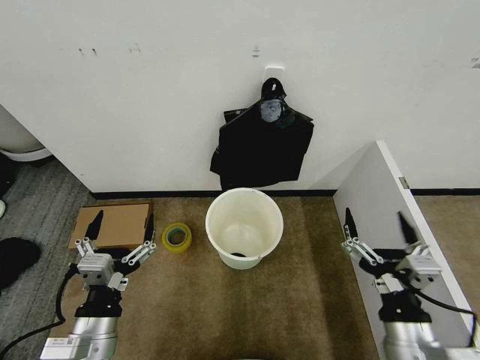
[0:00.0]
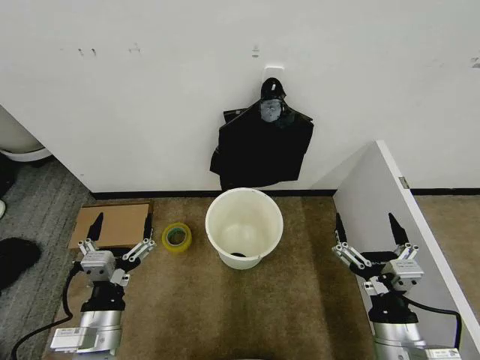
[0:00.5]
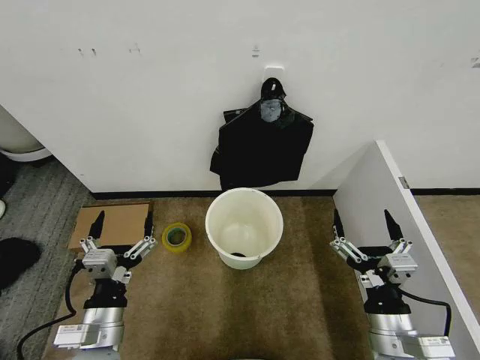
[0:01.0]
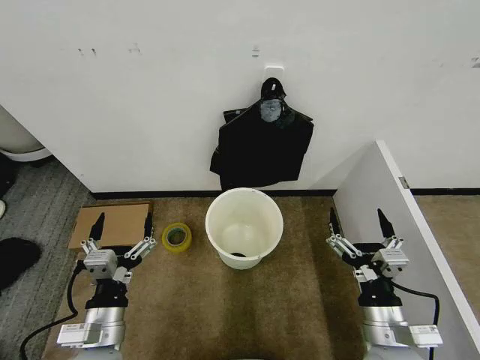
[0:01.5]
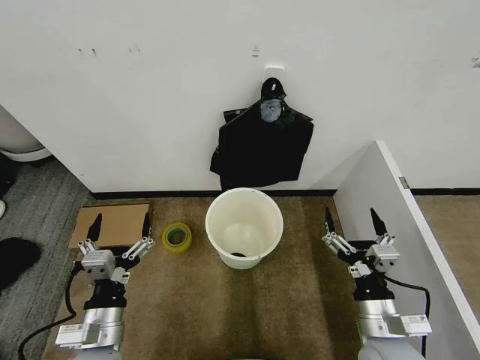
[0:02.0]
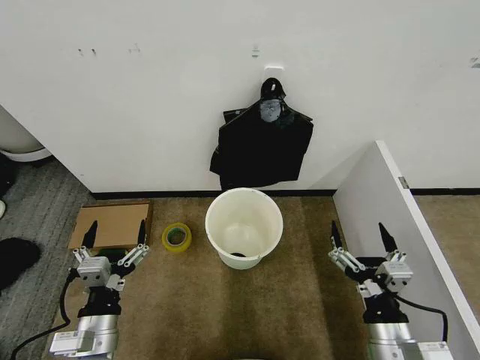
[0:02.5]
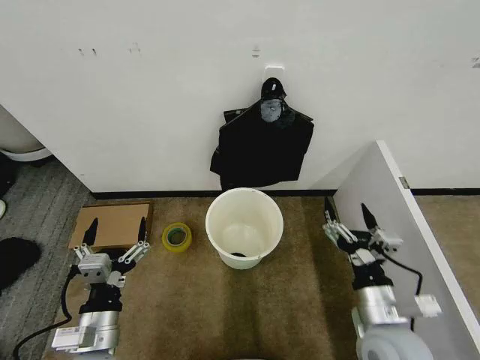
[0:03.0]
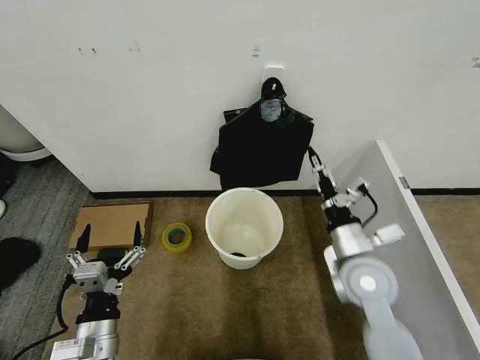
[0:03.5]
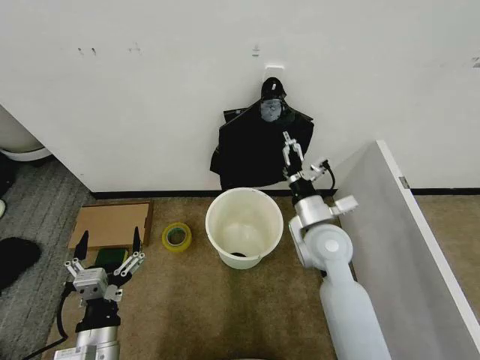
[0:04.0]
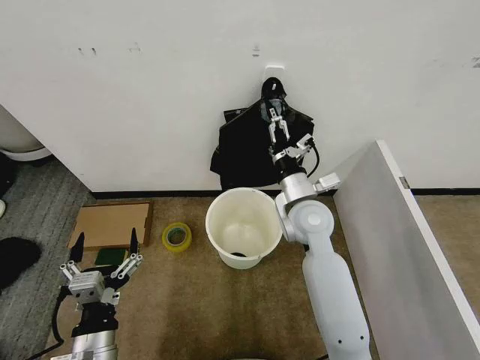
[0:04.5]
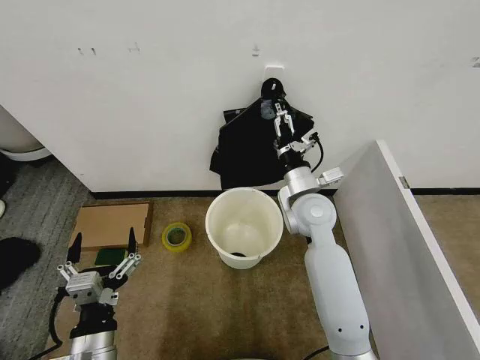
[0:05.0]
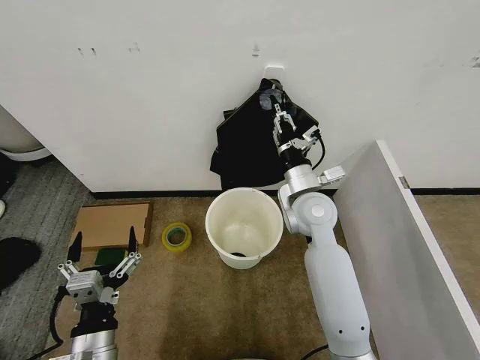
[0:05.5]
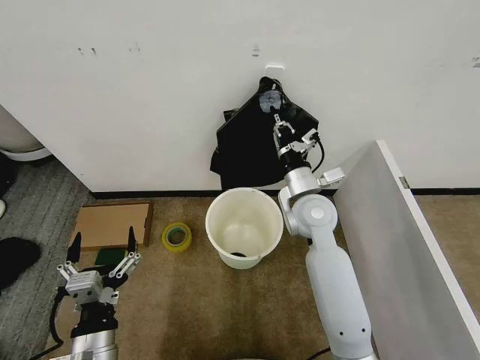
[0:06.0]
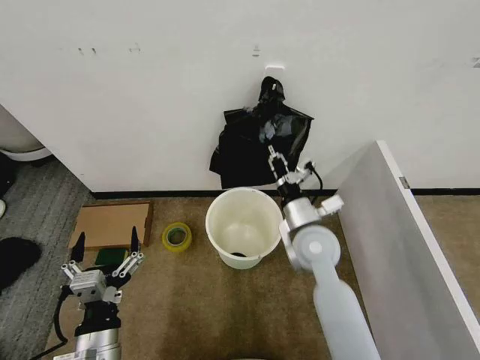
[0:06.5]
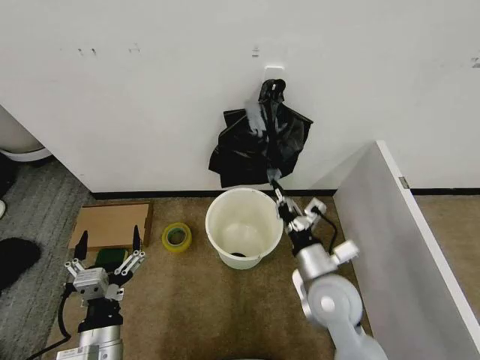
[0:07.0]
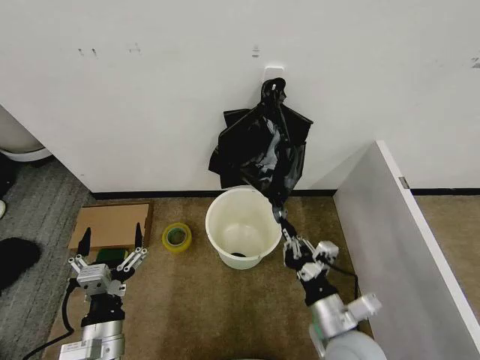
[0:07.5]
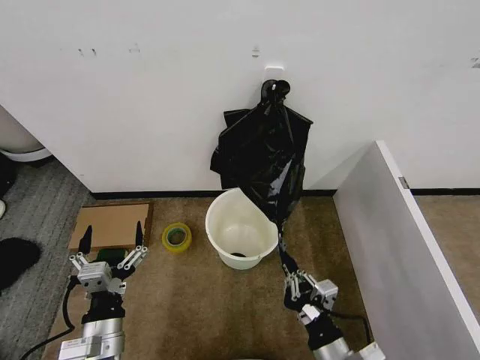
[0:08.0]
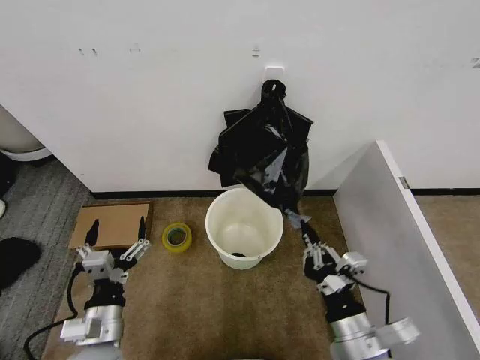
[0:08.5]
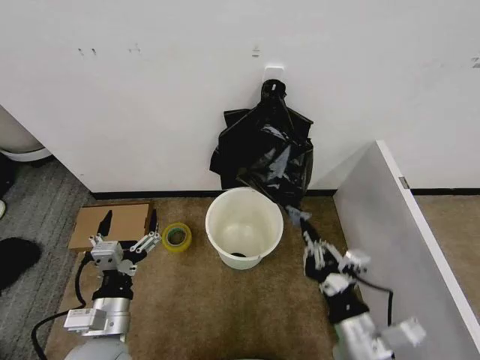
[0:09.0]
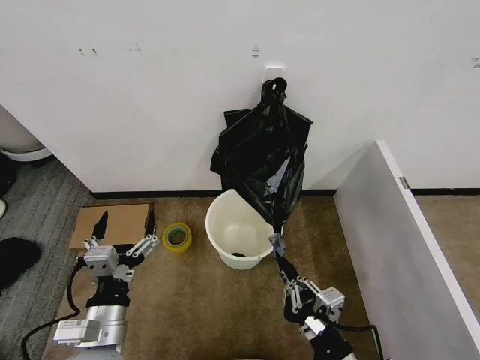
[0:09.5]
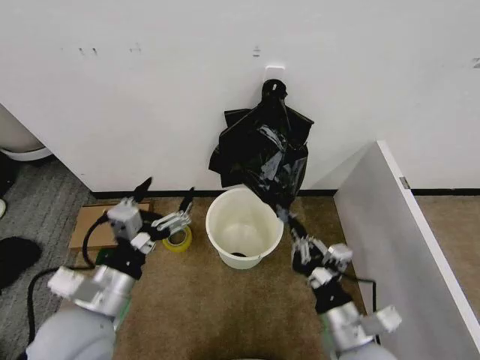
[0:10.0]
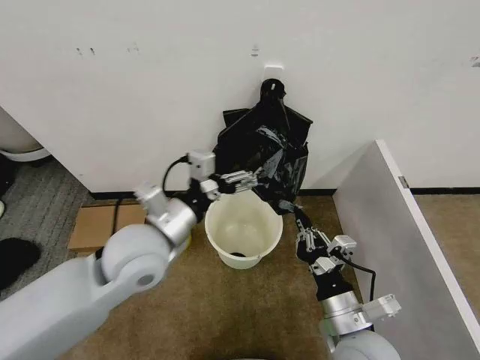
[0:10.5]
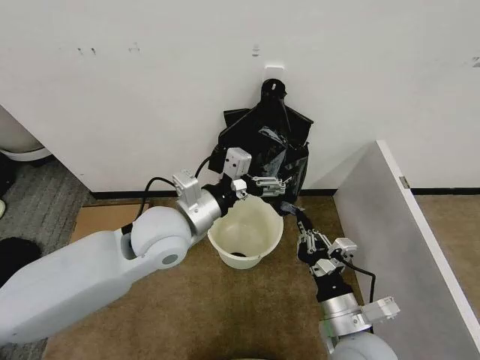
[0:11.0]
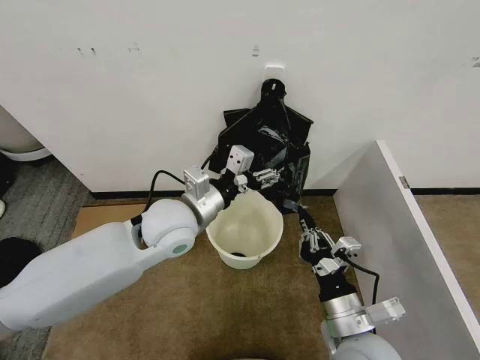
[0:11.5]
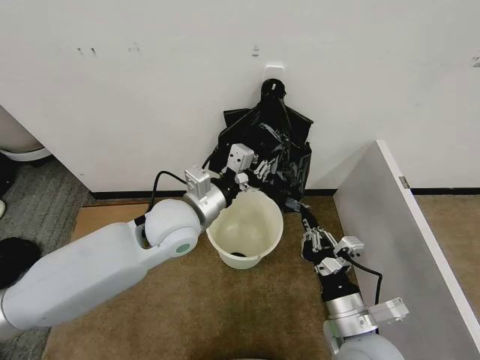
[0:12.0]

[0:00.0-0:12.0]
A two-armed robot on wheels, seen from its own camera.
Task of the whole recording: Place the garbage bag over the trash bin.
0:02.0 to 0:04.0: The right gripper moves forward, upward and to the left, about 20 cm.
0:04.0 to 0:06.0: The right gripper goes some 5 cm forward, and closes.
0:06.0 to 0:08.0: The right gripper travels backward and downward by approximately 35 cm.
0:08.0 to 0:10.0: The left gripper goes roughly 10 cm upward. The right gripper shifts some 5 cm upward.
0:10.0 to 0:12.0: The left gripper goes about 20 cm forward and to the right, and closes its fingers.

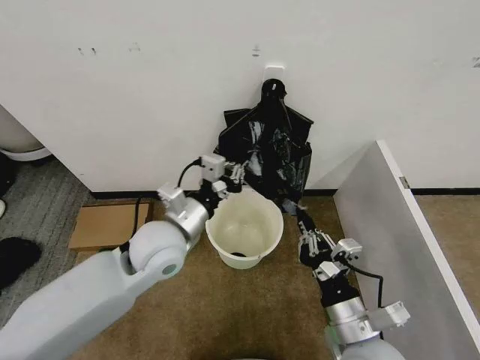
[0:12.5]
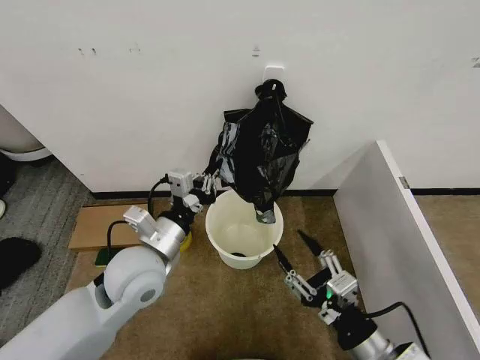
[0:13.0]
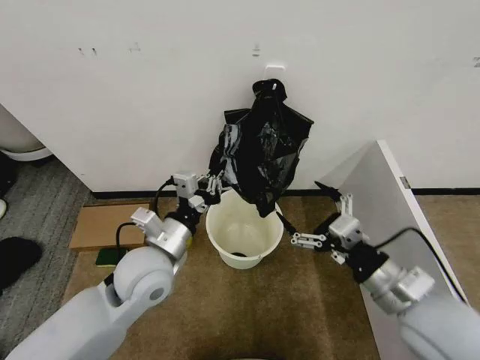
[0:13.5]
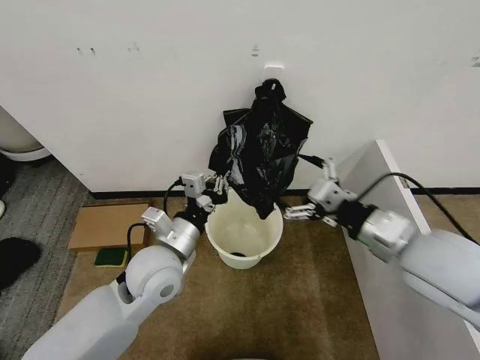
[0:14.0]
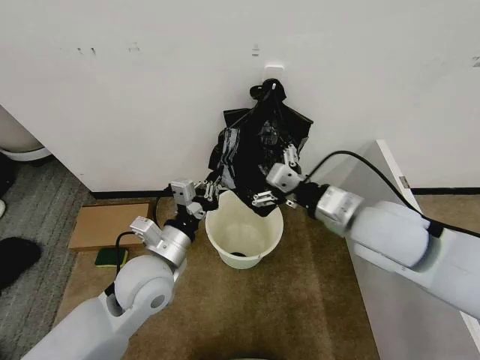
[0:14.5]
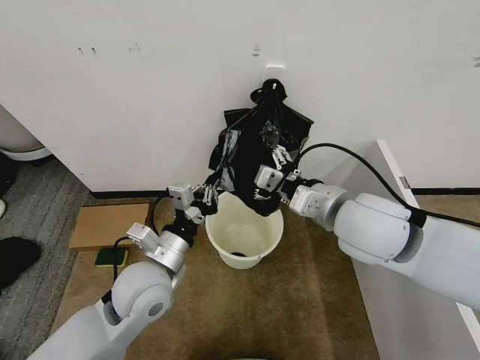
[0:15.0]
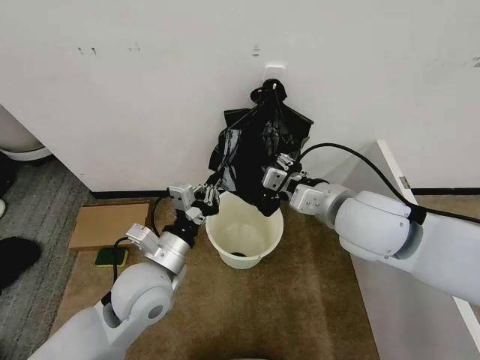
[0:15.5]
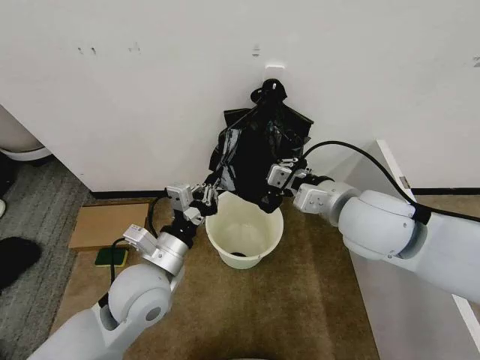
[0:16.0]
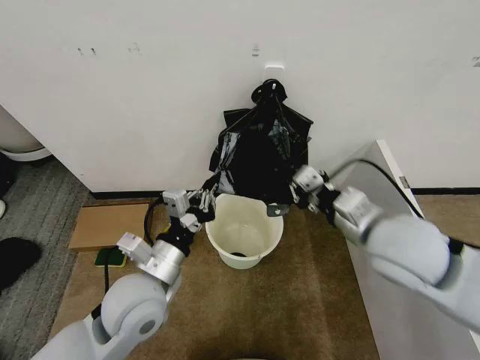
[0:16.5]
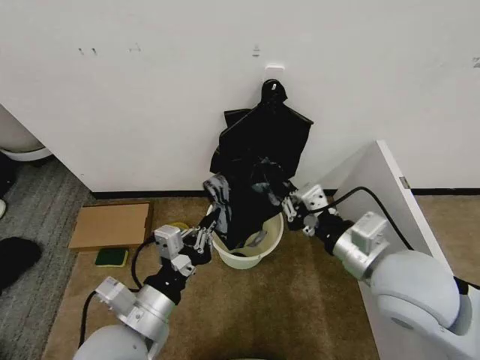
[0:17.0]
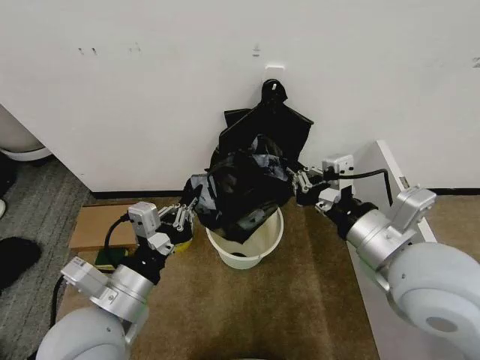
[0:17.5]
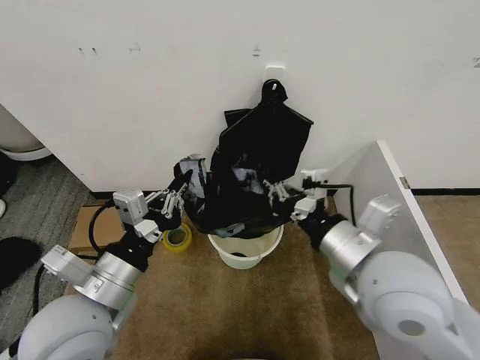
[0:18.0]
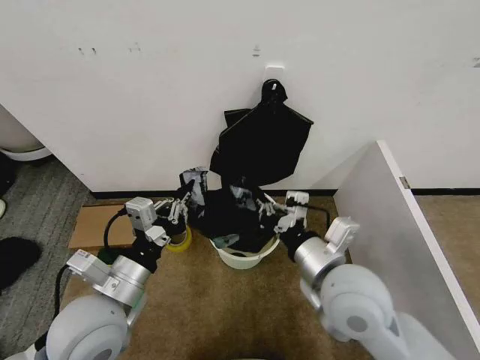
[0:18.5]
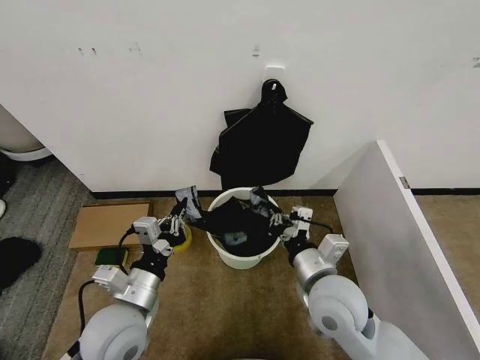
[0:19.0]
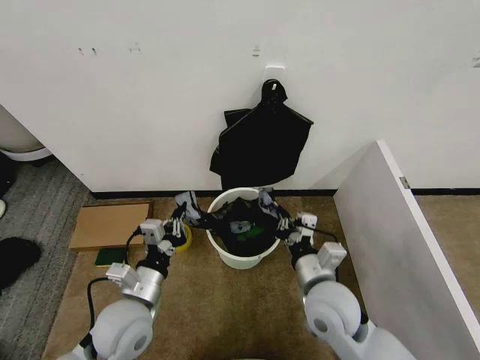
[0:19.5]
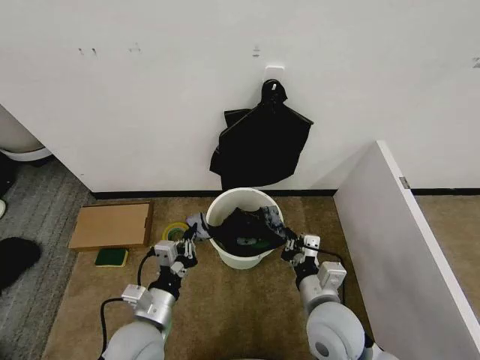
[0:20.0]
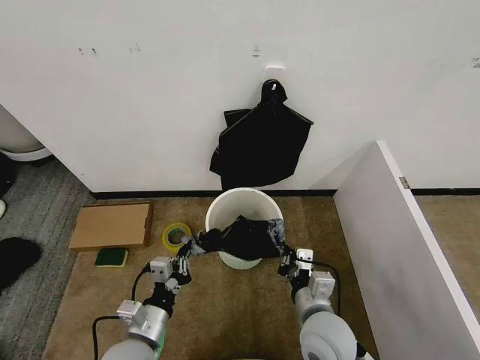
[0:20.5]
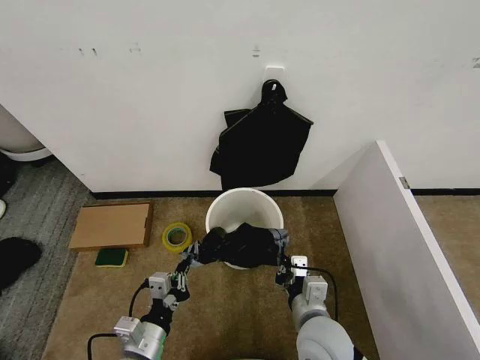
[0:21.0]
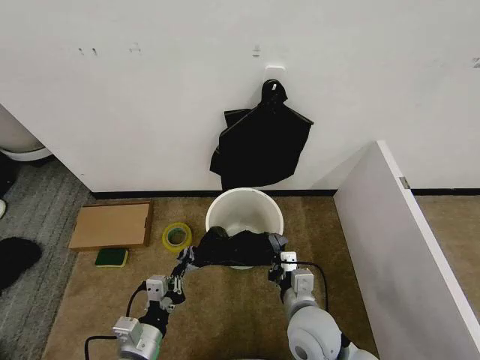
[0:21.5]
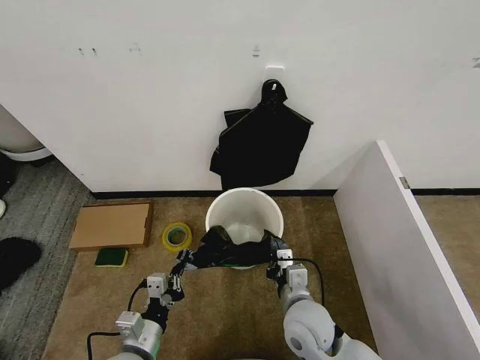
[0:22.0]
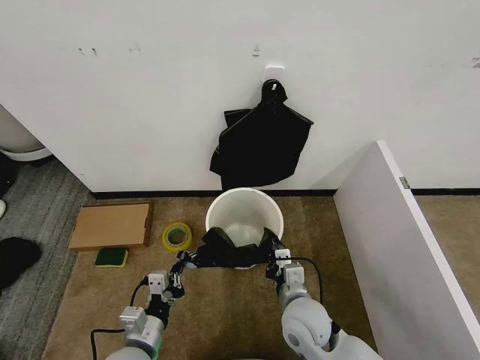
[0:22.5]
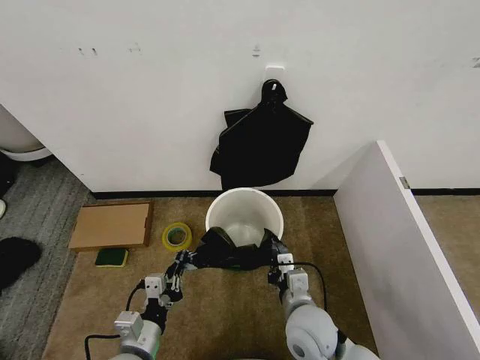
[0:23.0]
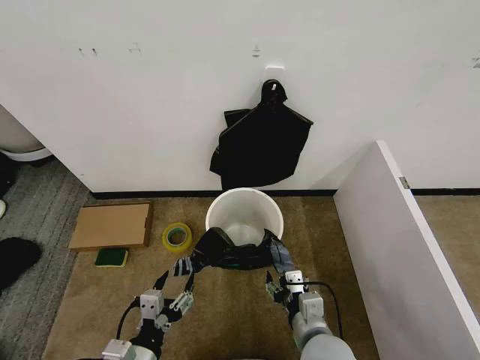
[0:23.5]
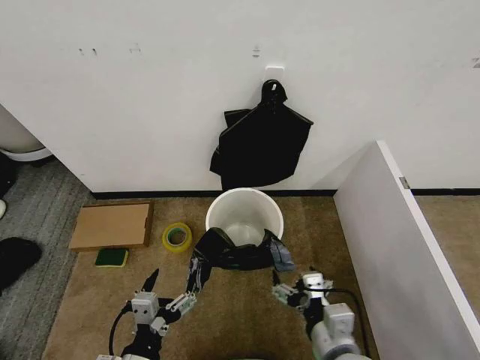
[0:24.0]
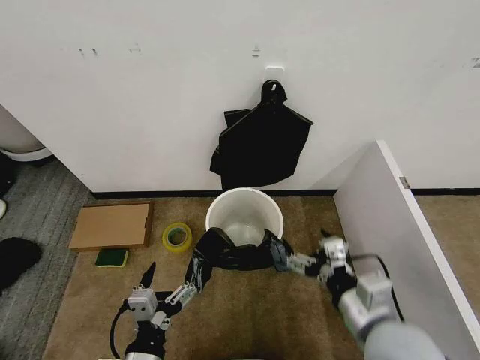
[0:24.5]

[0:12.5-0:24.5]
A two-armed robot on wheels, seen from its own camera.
Task of the whole recording: Place the garbage bag over the trash bin.
0:12.5 to 0:14.5: The right gripper moves upward and forward, approximately 20 cm, and opens up. The left gripper shifts by some 5 cm.
0:14.5 to 0:16.5: The right gripper closes its fingers.
0:16.5 to 0:18.5: The left gripper shifts by some 5 cm. The right gripper shifts some 10 cm to the left.
0:18.5 to 0:20.5: The two grippers go about 15 cm downward.
0:20.5 to 0:22.5: The right gripper shifts by approximately 5 cm.
0:22.5 to 0:24.5: The right gripper moves upward, to the right and backward, approximately 20 cm, and opens up. The left gripper goes some 10 cm backward and upward, and opens.

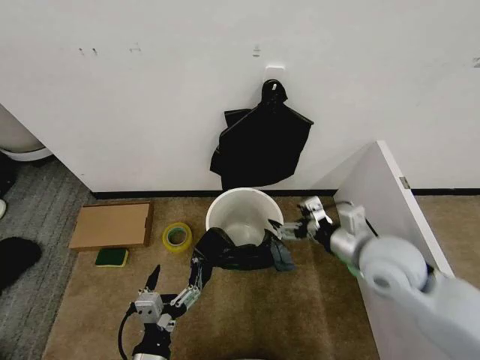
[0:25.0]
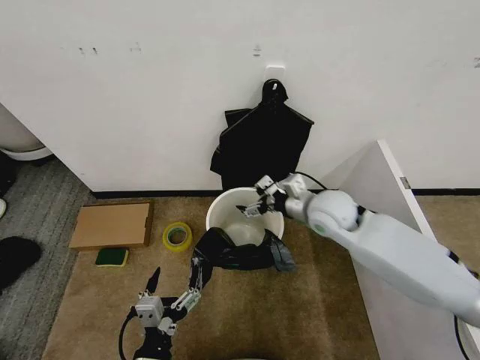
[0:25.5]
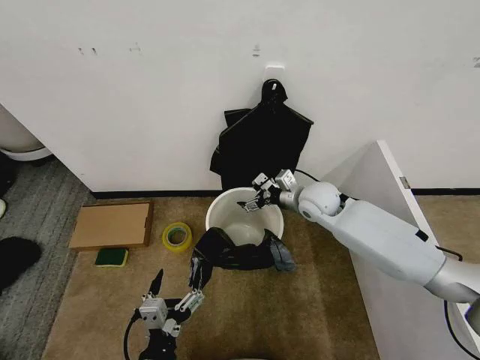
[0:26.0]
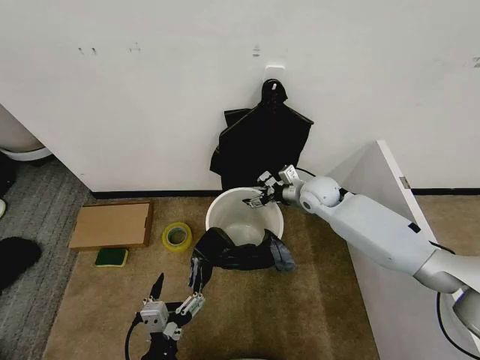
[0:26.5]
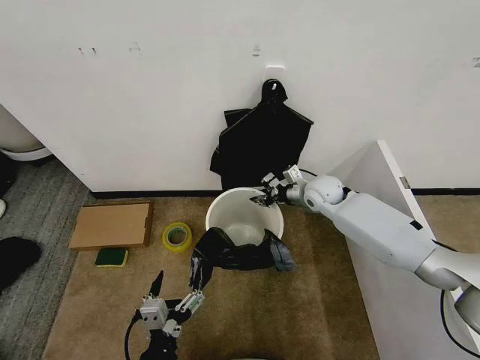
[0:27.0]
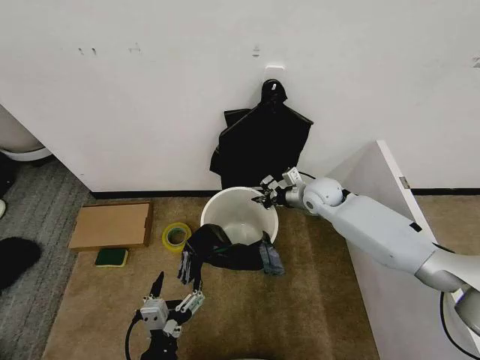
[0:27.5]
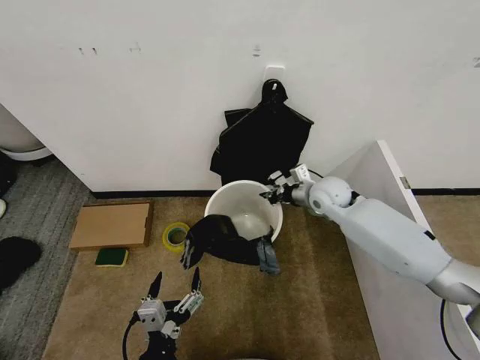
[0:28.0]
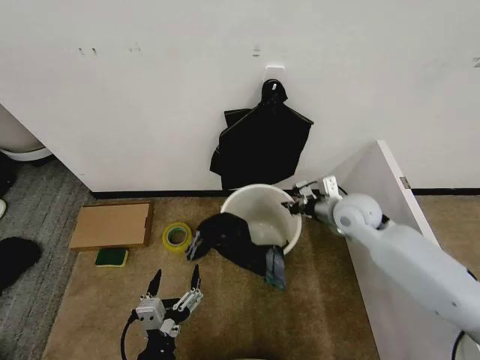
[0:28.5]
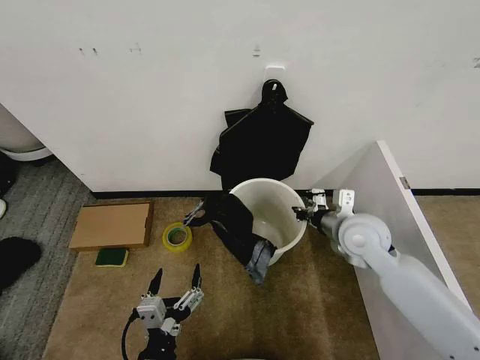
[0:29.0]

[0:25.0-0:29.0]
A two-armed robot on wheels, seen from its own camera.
Task of the whole recording: Place the garbage bag over the trash bin.
0:25.0 to 0:27.0: The right gripper heads forward, covering approximately 25 cm, and closes its fingers.
0:27.0 to 0:29.0: The right gripper shifts some 15 cm backward, and closes its fingers.
